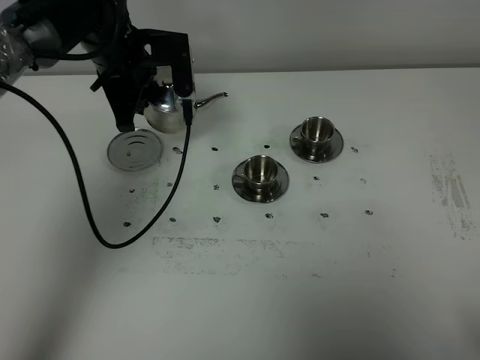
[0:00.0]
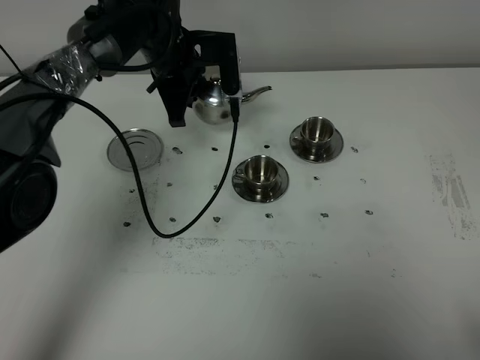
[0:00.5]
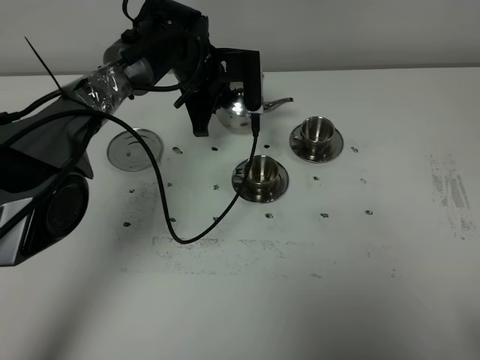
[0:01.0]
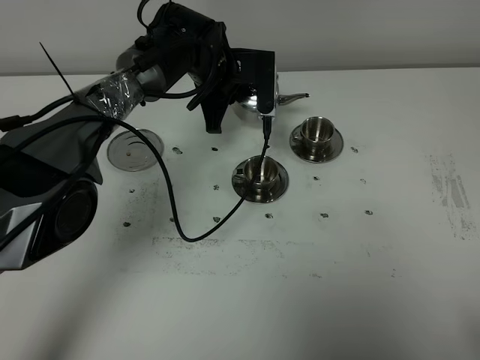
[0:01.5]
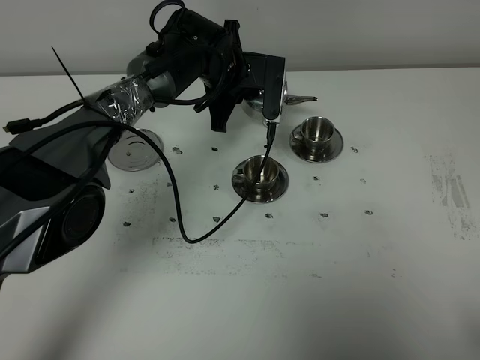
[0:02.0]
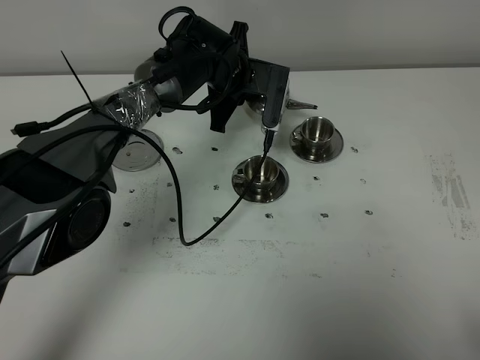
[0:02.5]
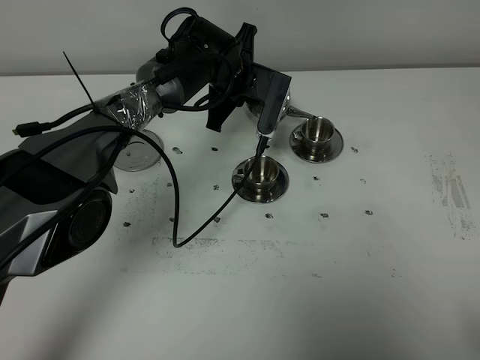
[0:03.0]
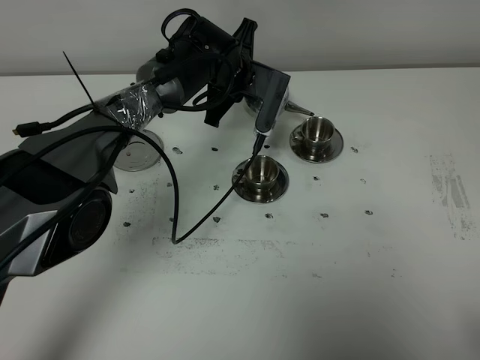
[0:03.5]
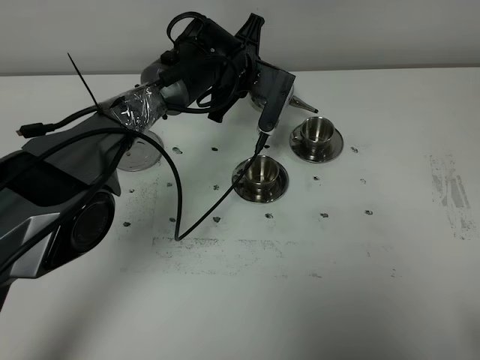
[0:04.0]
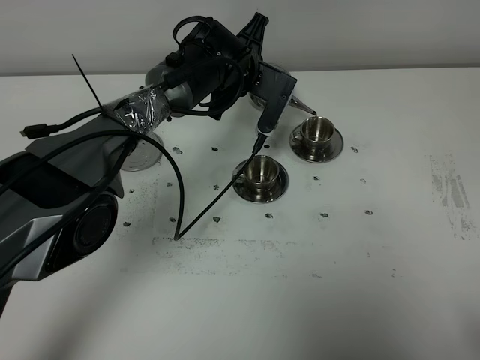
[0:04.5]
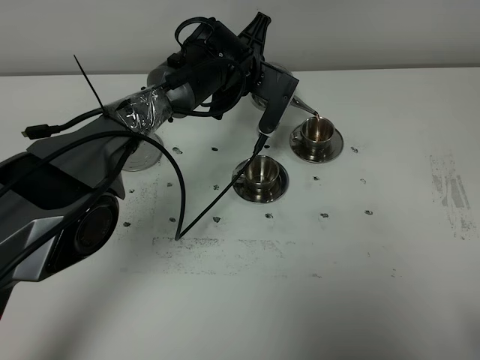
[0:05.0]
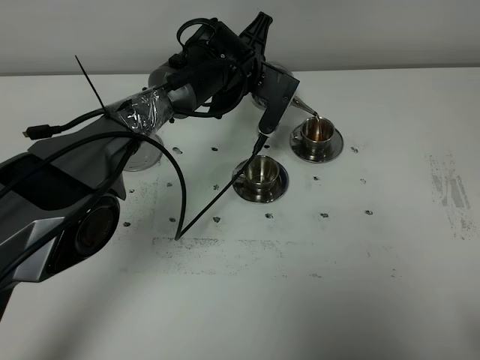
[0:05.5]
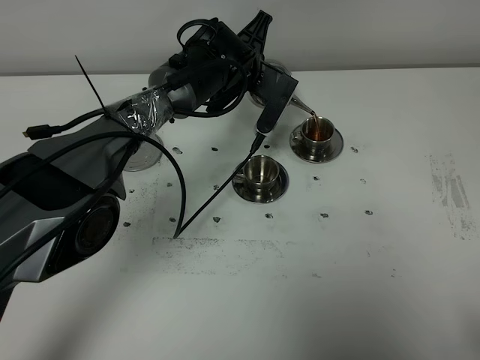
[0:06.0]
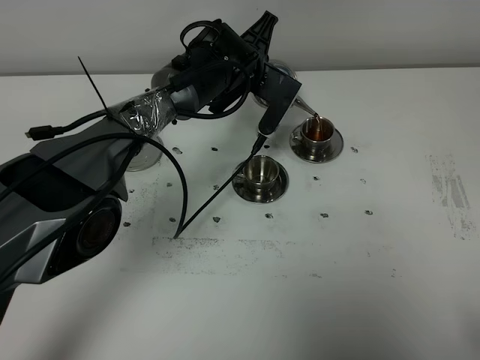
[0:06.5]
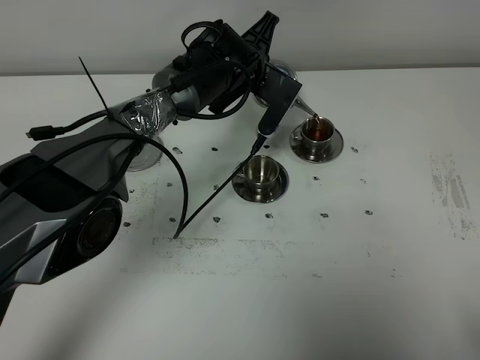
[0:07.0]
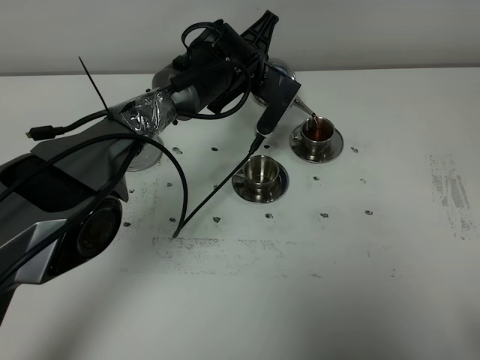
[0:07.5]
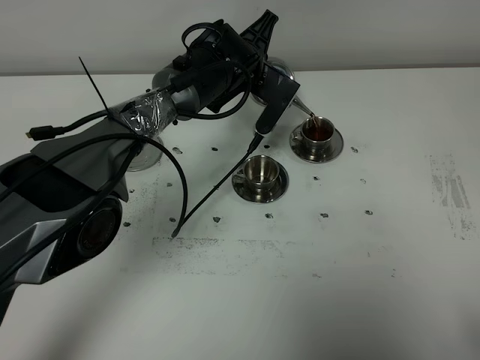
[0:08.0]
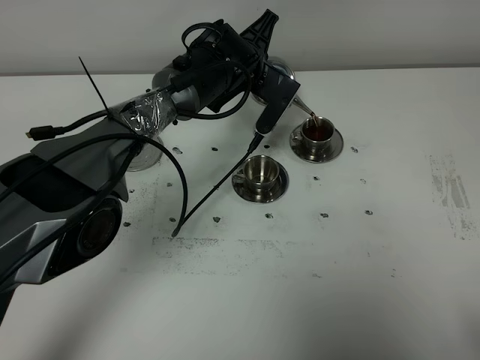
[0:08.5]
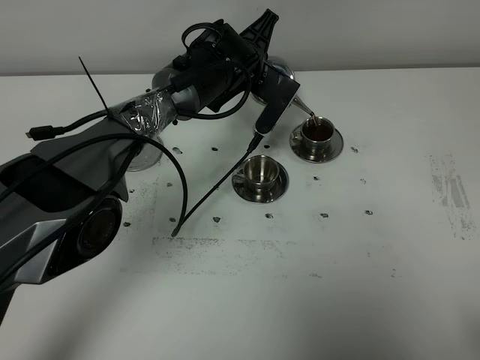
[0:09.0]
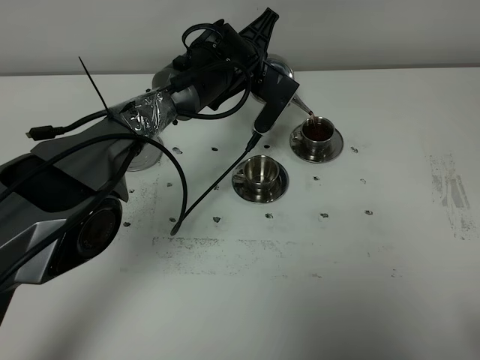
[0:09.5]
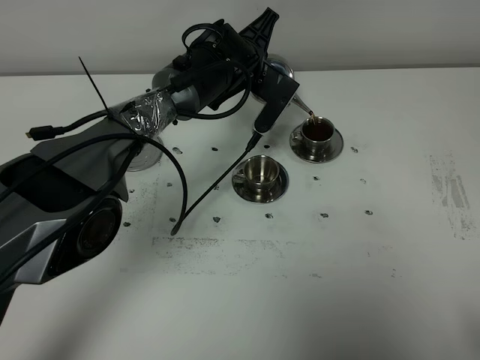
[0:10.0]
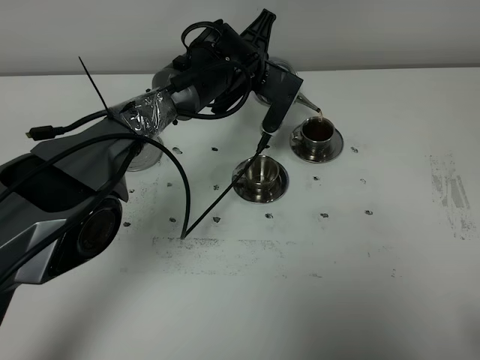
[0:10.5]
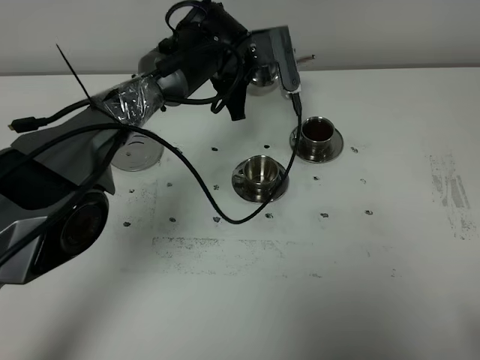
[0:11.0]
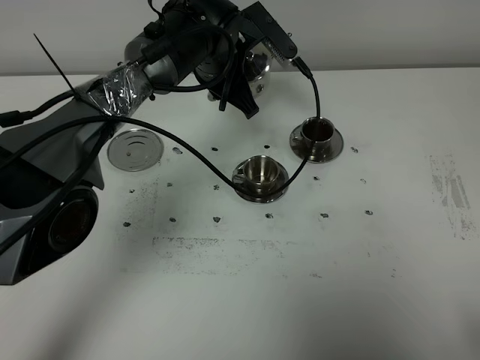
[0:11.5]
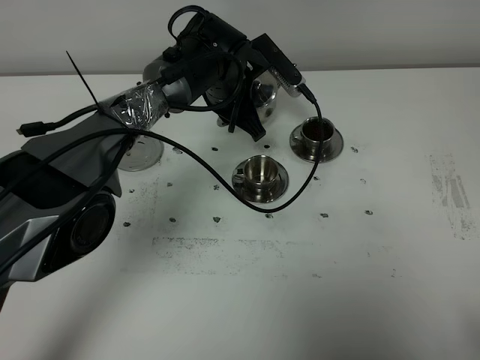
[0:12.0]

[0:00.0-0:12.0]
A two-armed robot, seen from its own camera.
Task of the whole recording: grasp the stainless steel teapot and pour the tea into the two stainless steel teacups one by one, put the stainless steel teapot back in its original place.
0:00.0 to 0:02.0: The left gripper travels to the right and downward by approximately 15 cm.
0:04.0 to 0:06.0: The grippers stay close to where they were, moving slightly.
0:06.0 to 0:08.0: Neither gripper changes place.
0:08.0 to 0:10.0: Neither gripper changes place.

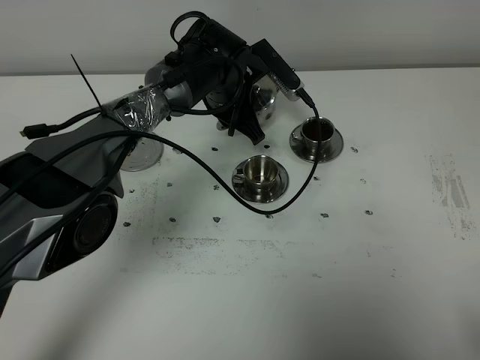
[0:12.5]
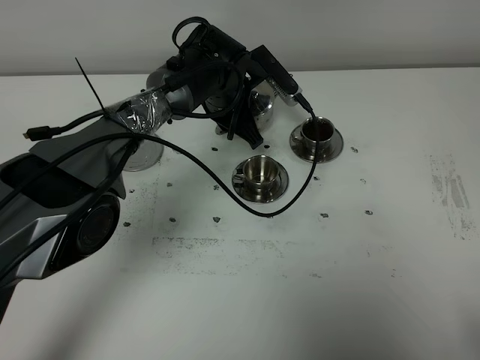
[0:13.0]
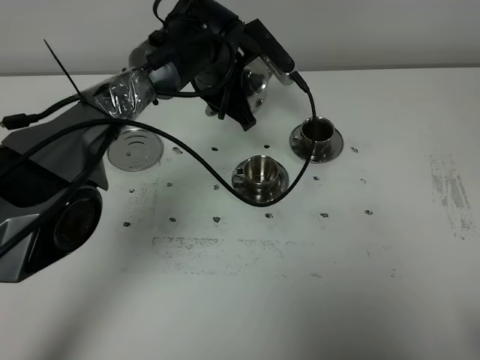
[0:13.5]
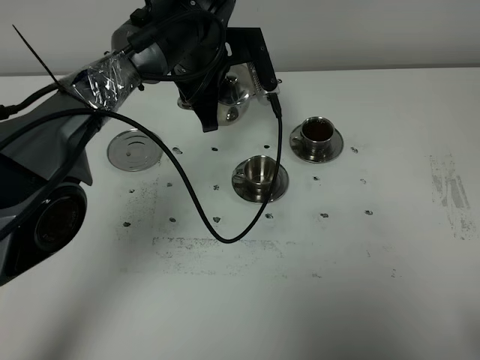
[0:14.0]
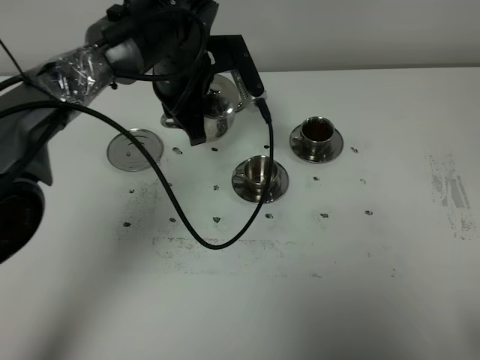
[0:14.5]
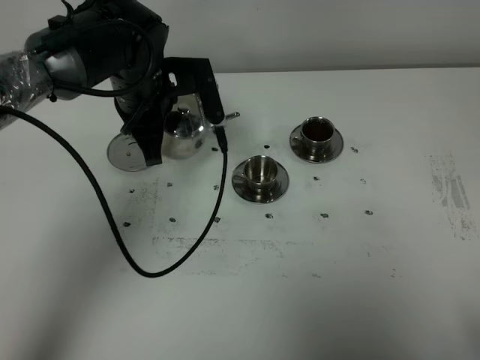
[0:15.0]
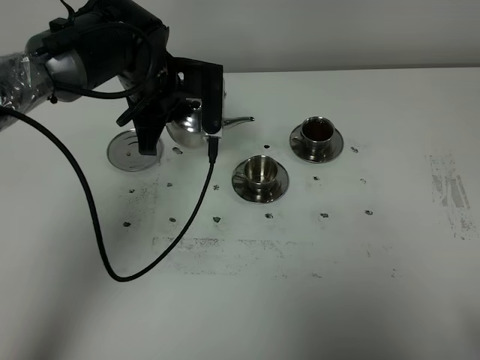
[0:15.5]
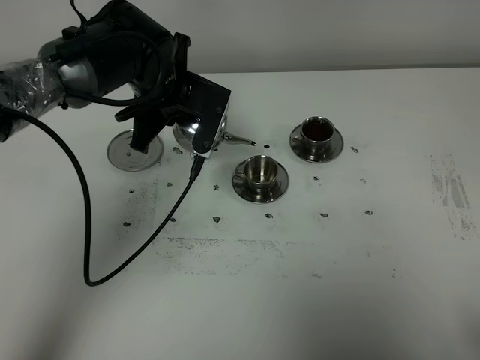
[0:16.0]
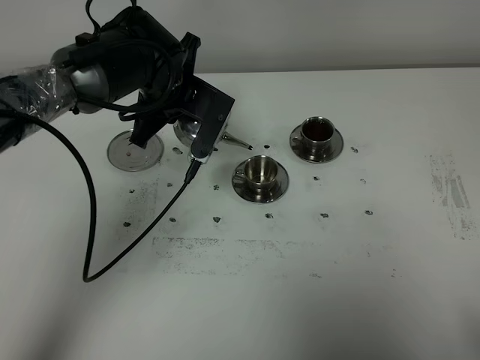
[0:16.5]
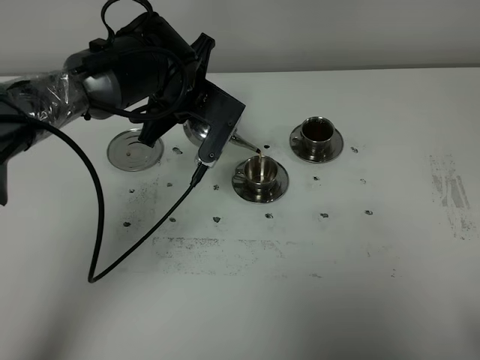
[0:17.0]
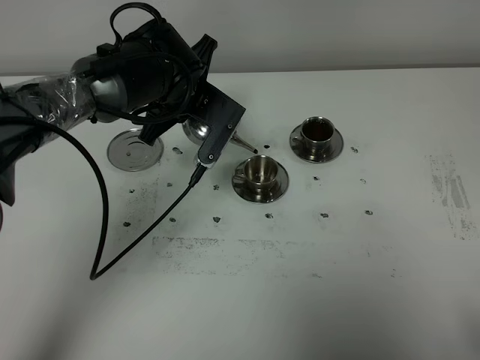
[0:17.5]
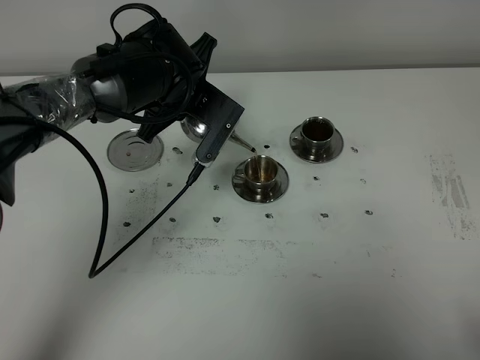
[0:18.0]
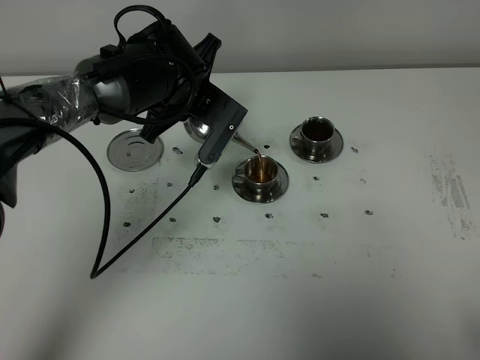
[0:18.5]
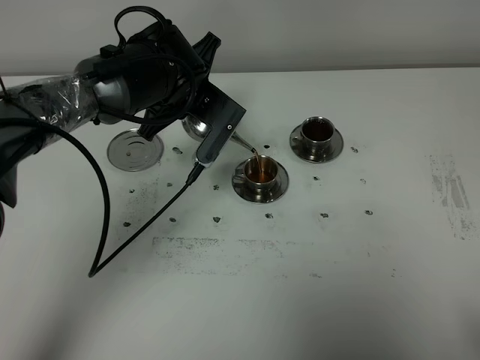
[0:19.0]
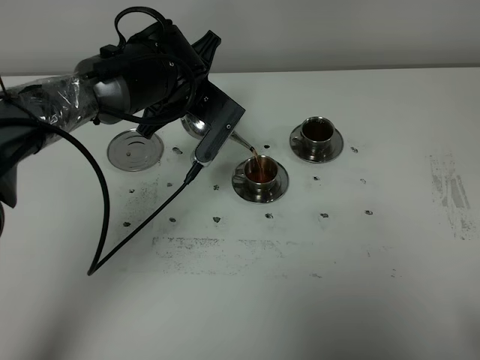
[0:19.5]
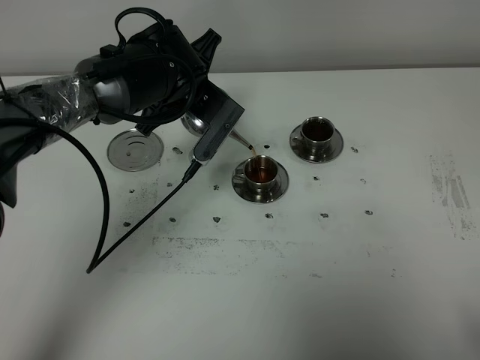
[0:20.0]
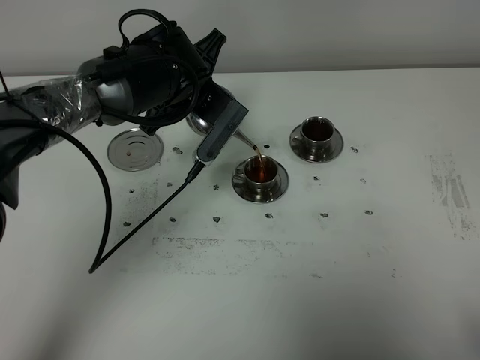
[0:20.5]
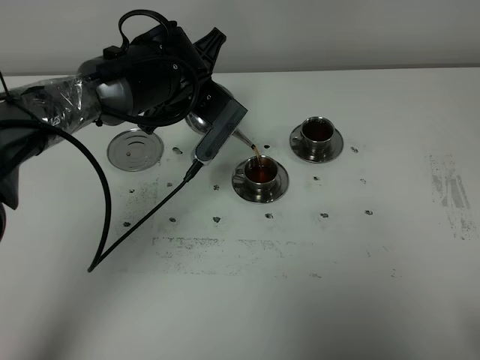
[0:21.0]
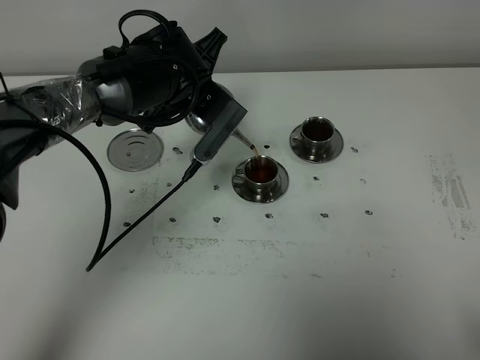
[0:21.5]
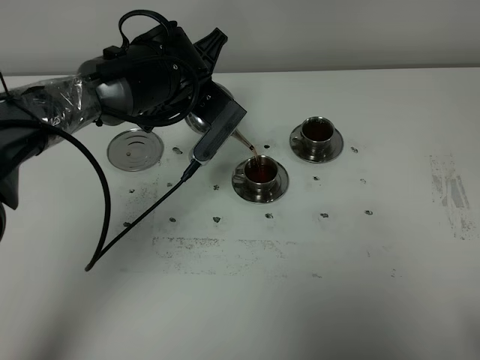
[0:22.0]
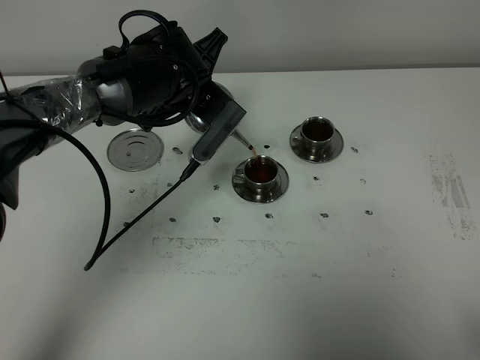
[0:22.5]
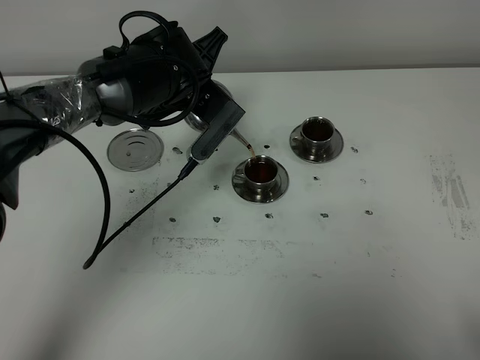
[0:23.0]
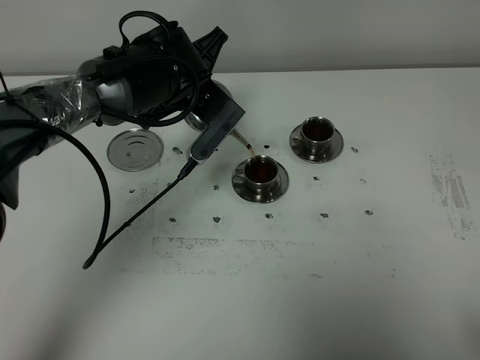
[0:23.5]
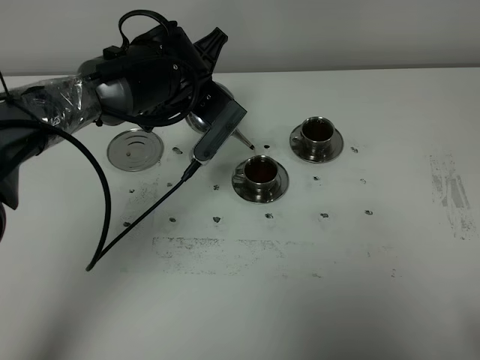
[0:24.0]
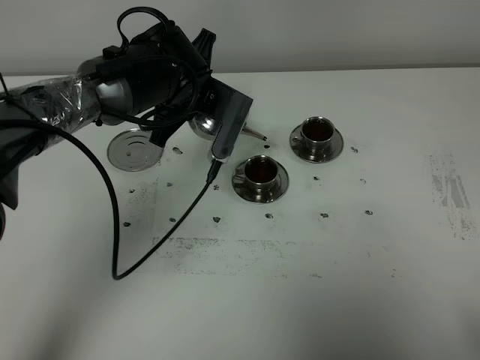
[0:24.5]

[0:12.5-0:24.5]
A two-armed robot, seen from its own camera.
Task of the whole recording: grasp the stainless steel teapot and pour the tea into the two stainless steel teacups one by one, put the stainless steel teapot back in its original place.
Step, 0:12.5 to 0:24.0: Pour tea into the teacup with the left gripper.
0:12.5 to 0:14.5: The left gripper moves upward, some 10 cm.
0:16.5 to 0:18.5: The grippers make only small movements.
0:18.5 to 0:20.5: Both grippers stay about where they are.
0:20.5 to 0:22.5: Both grippers stay put.
0:22.5 to 0:24.5: The grippers stay close to where they were, moving slightly.

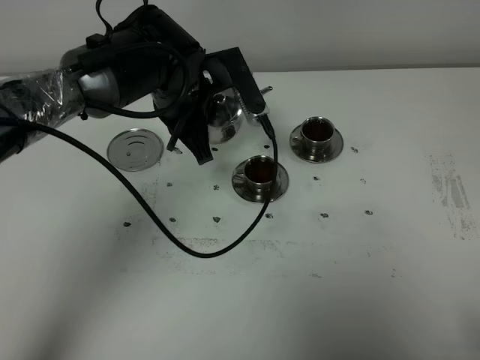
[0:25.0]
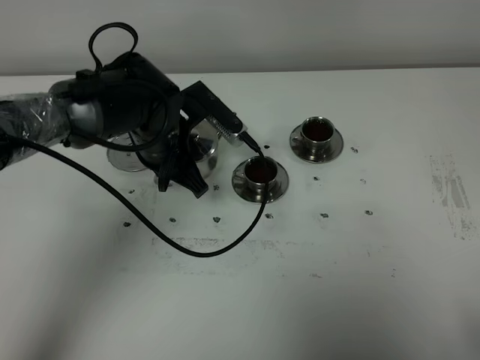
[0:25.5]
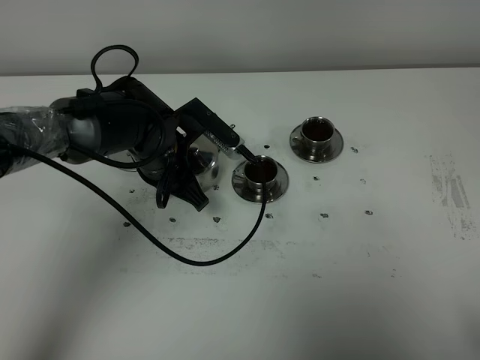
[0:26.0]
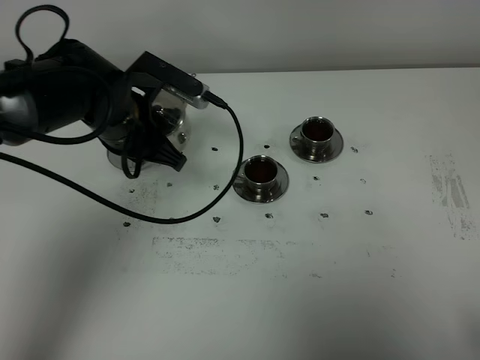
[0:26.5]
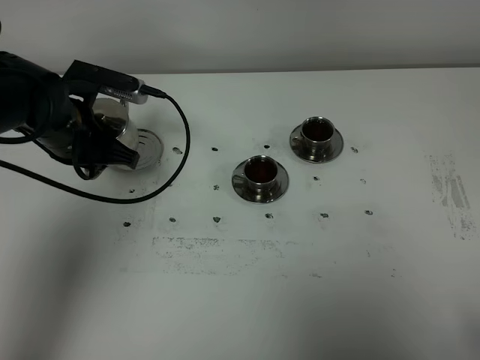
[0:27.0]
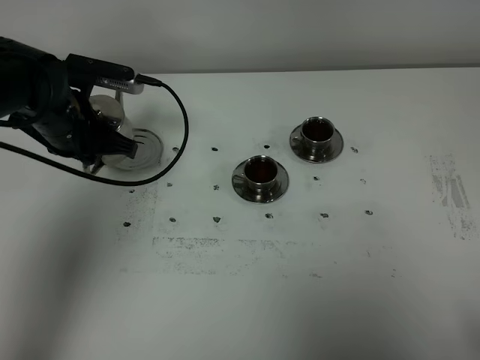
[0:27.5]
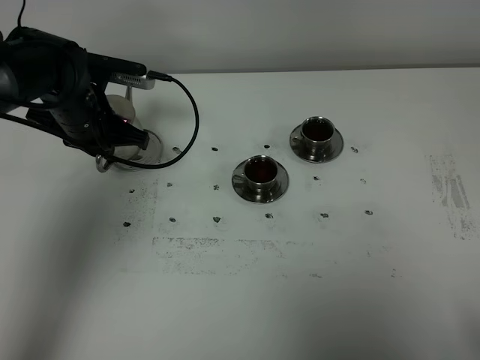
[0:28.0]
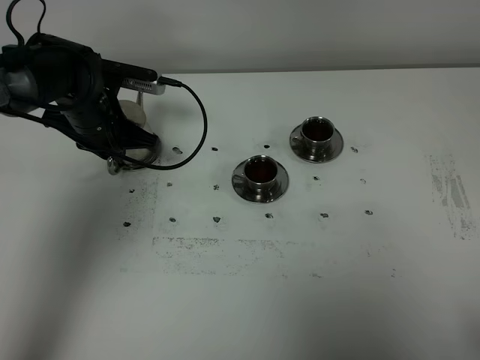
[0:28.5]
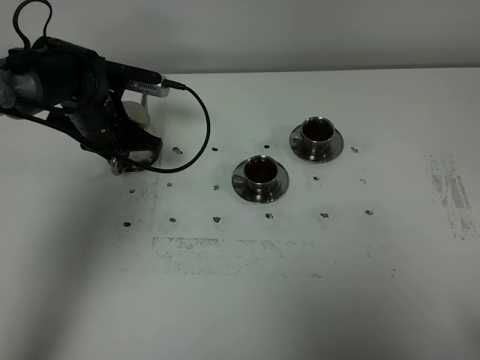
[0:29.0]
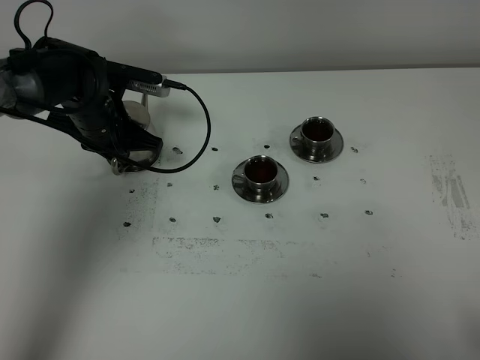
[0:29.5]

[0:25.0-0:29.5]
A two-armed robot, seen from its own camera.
Task of the whole recording: grasp the stainless steel teapot and pour the tea into the two stainless steel teacups one by one, put the stainless steel teapot back in its original place.
0:25.0 to 0:27.0: The left gripper moves to the left, roughly 15 cm.
0:27.0 to 0:29.5: The left gripper travels forward by approximately 5 cm.
